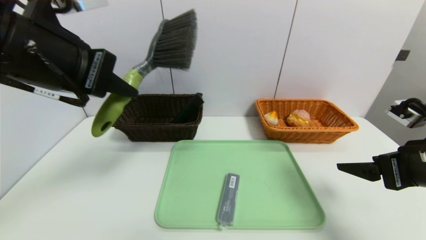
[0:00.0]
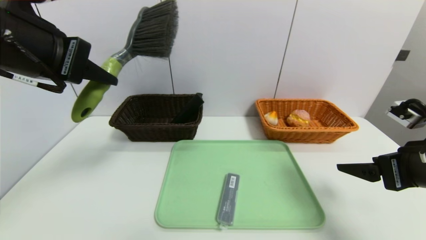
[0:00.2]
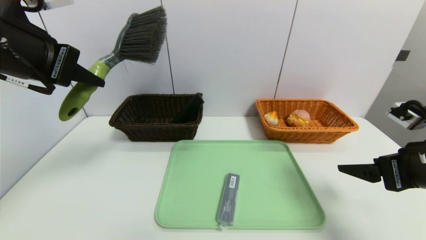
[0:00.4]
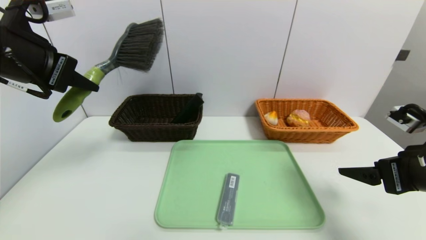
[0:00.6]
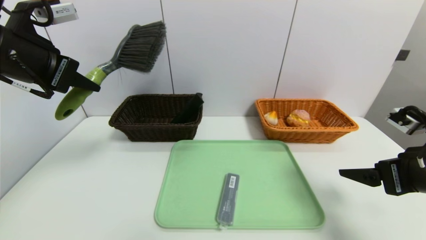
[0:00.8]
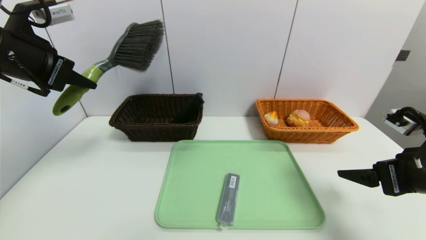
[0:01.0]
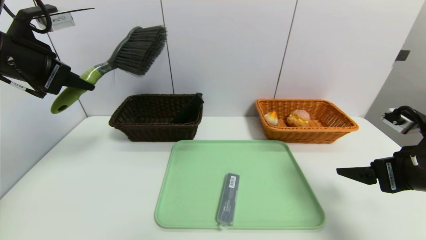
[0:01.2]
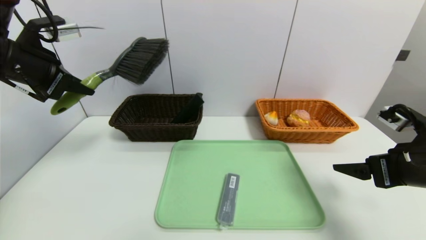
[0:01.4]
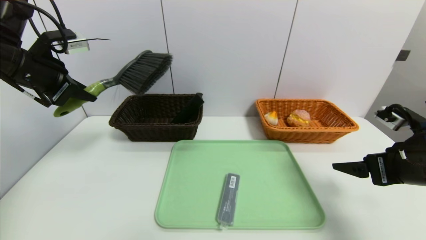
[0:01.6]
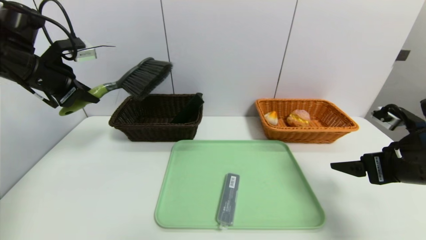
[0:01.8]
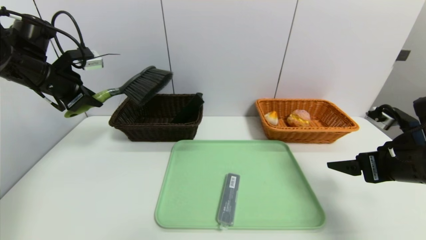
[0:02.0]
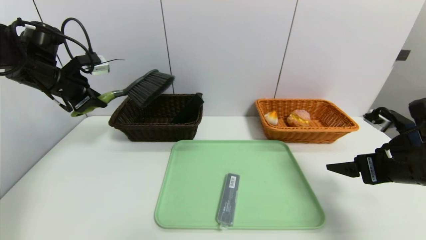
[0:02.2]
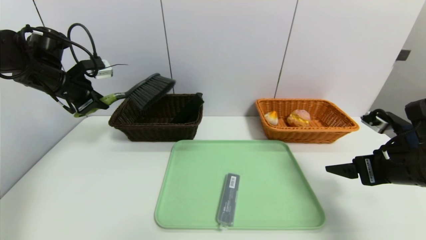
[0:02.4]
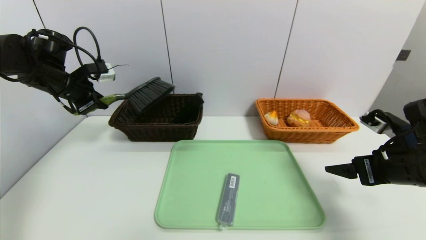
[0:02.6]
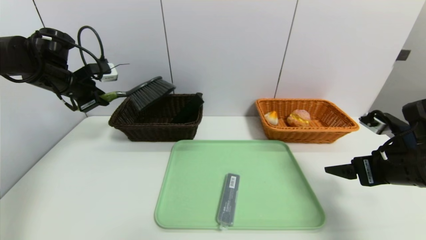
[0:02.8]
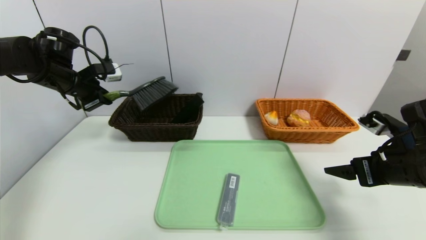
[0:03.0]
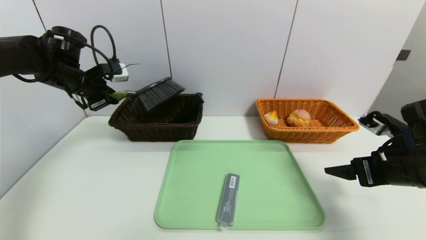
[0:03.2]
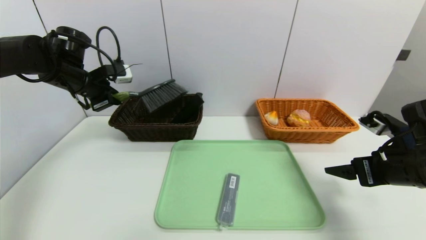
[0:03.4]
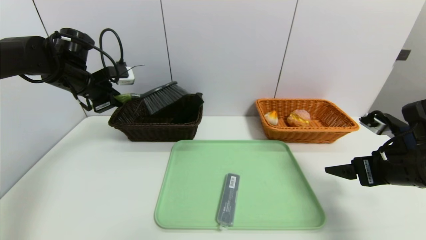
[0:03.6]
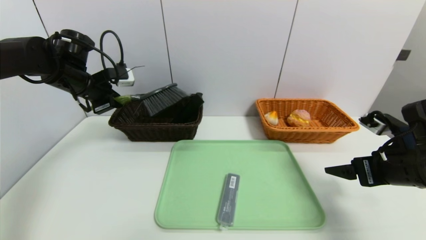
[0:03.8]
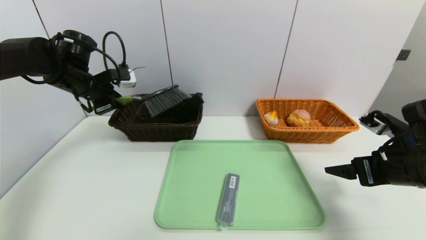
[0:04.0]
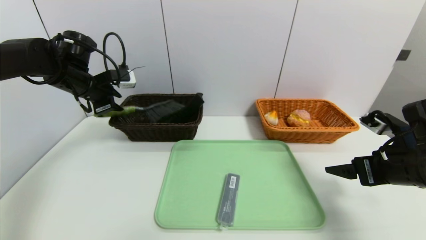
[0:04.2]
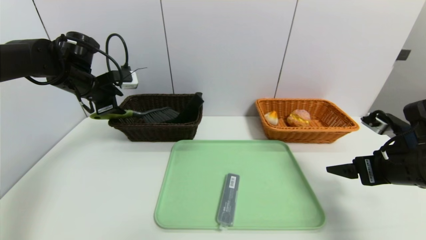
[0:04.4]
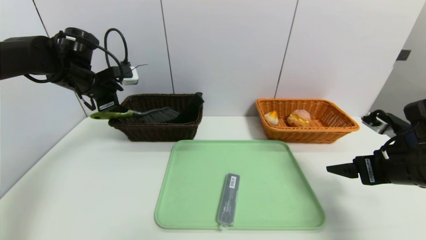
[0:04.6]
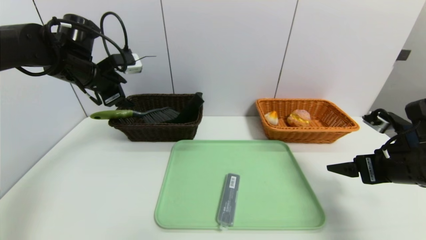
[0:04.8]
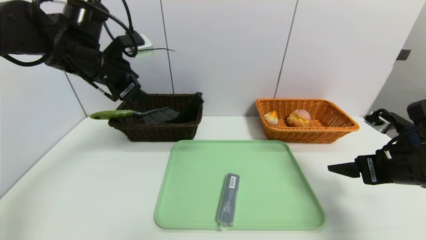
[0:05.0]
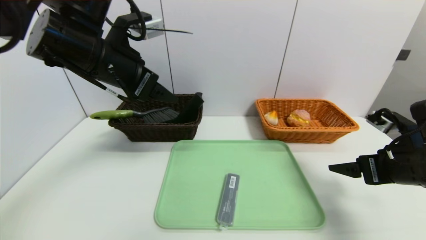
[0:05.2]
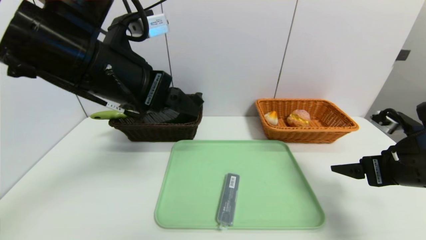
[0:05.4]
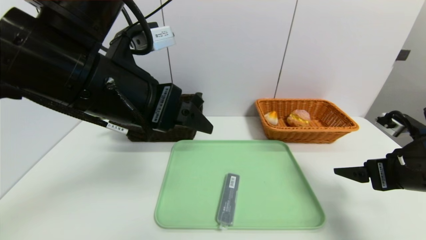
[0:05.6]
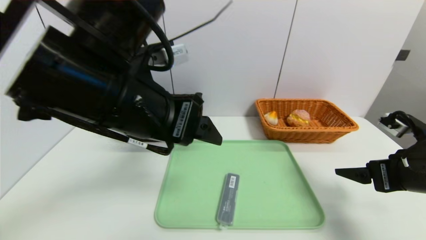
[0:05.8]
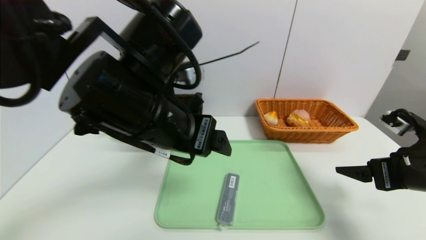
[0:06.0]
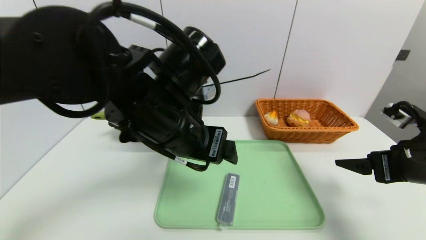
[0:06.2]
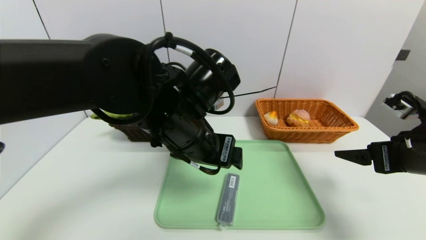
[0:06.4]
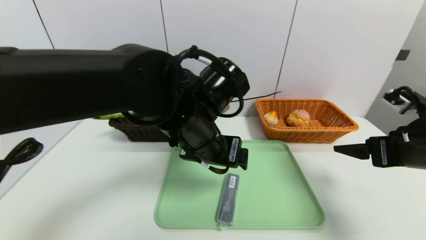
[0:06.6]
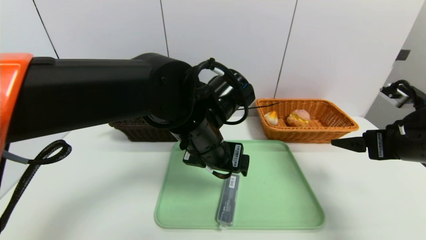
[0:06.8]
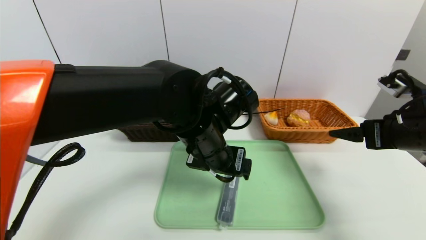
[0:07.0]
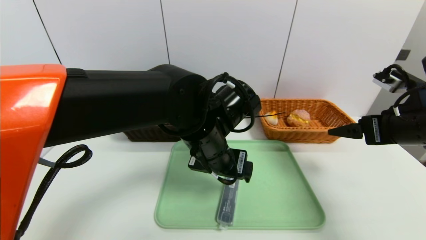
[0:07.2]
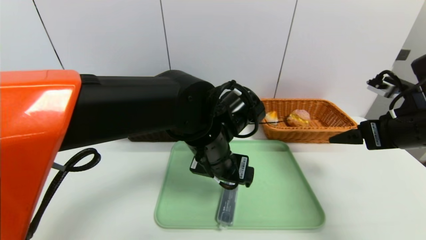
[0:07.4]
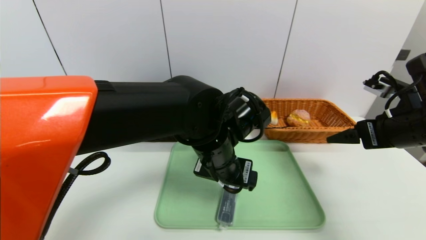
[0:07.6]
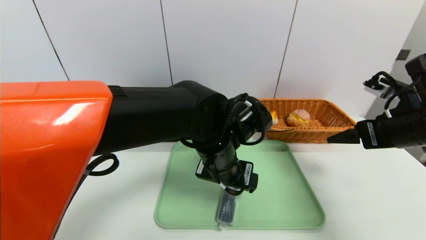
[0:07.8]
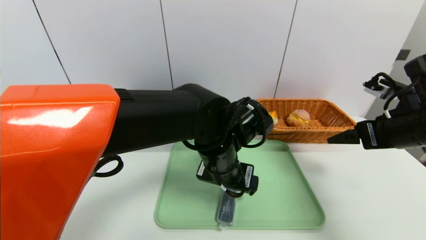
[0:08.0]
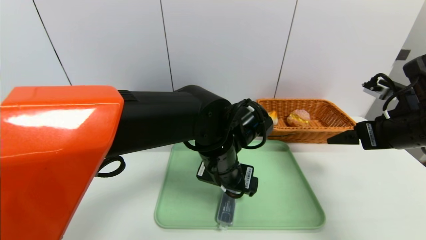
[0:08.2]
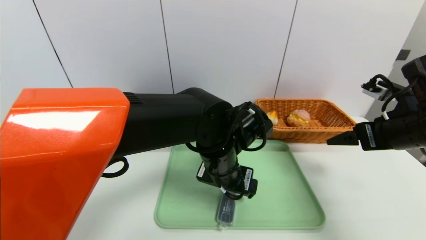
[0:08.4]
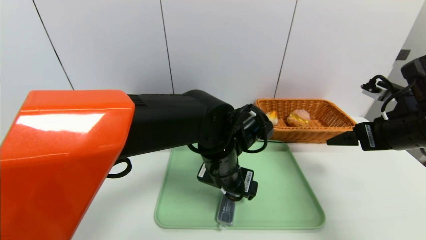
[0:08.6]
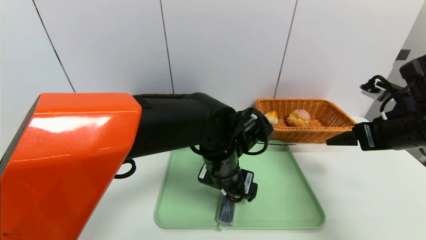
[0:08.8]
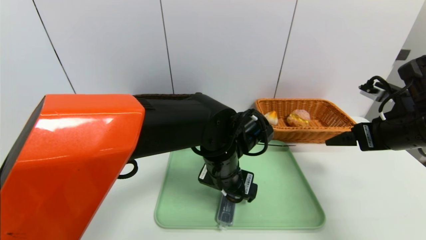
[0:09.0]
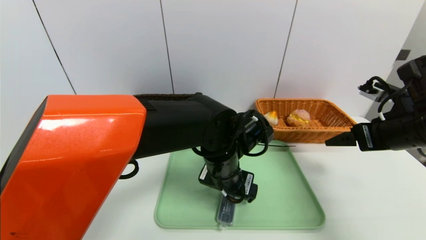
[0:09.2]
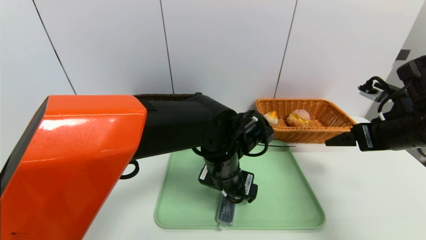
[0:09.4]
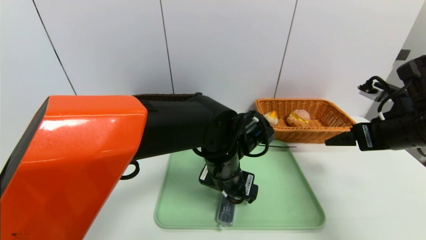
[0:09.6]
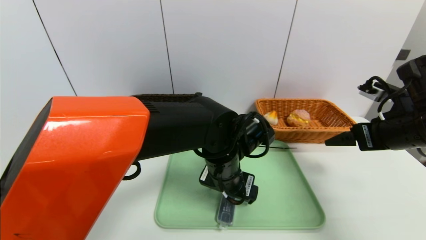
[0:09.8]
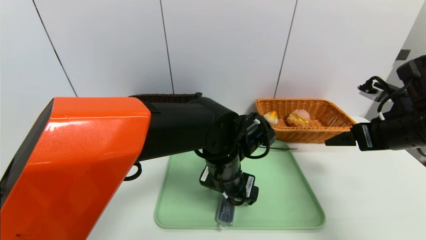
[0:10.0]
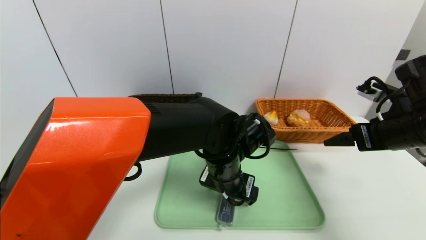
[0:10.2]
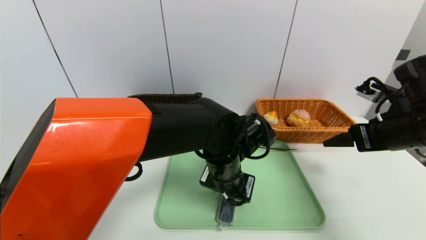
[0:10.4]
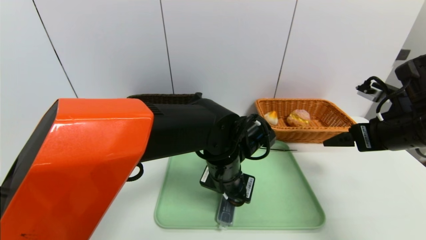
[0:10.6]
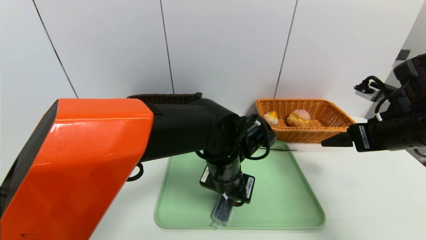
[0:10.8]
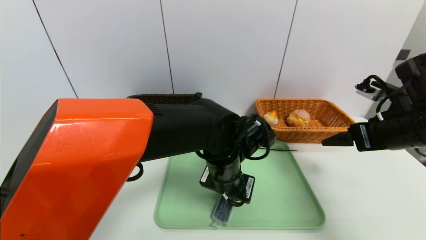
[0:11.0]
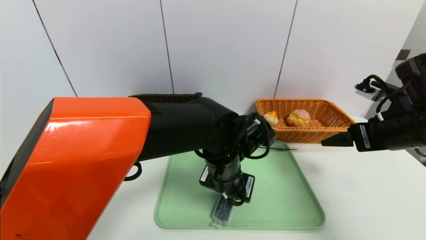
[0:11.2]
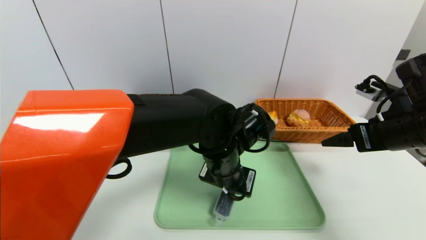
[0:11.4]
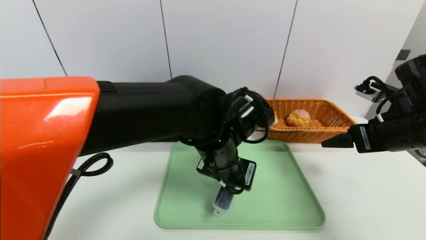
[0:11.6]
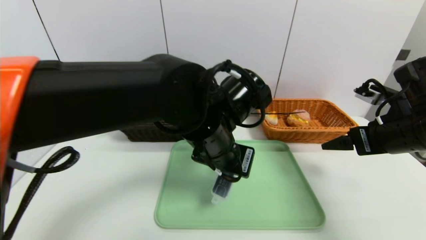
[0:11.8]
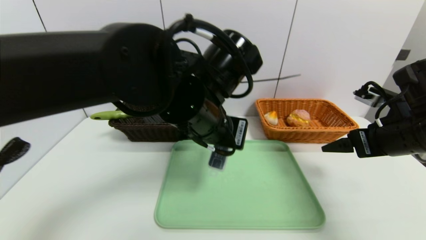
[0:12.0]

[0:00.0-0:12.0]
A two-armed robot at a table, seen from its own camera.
Task of the whole recording: place the food in the right basket with the right gripper, and place the non food items in the left basket with the left gripper.
Step, 0:00.0 to 0:04.6: Grasp the brush and put it in the left basket.
0:00.0 to 0:01.6: The left gripper is displaced to the left and forward by roughly 15 cm.
0:01.6 to 0:03.0: The left gripper travels forward and downward by about 10 cm.
0:03.0 to 0:04.4: The left gripper opens.
0:04.4 to 0:06.0: The left gripper goes roughly 30 cm to the right and backward, and opens up.
0:06.0 to 0:07.6: The right gripper heads forward, covering approximately 5 cm. Meanwhile the left gripper shifts some 15 cm downward and to the right.
0:09.0 to 0:10.4: The two grippers keep their place.
0:10.4 to 0:12.0: The left gripper travels upward by some 10 cm, and closes its fingers.

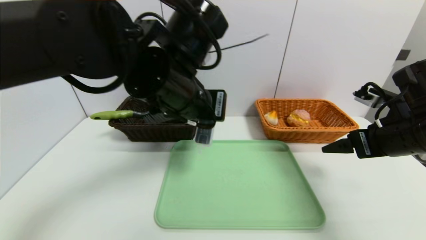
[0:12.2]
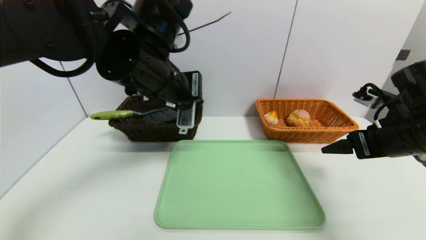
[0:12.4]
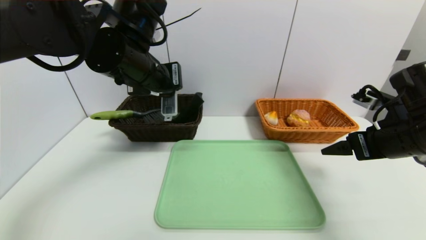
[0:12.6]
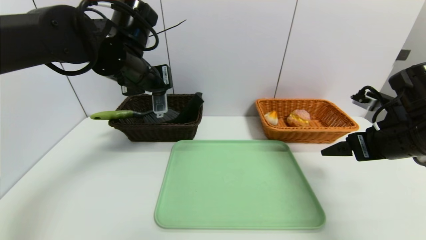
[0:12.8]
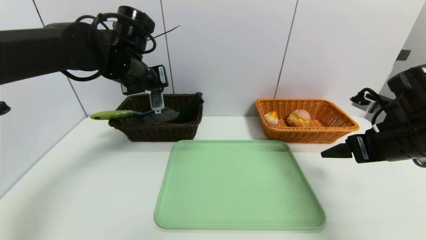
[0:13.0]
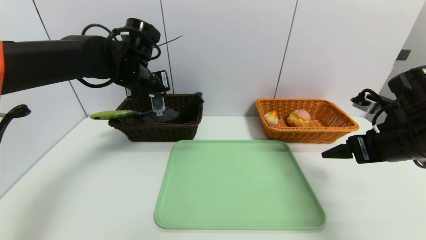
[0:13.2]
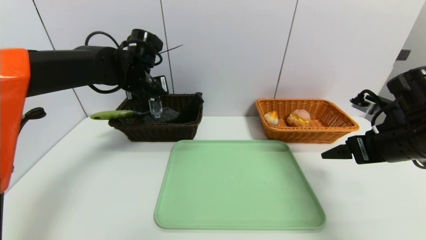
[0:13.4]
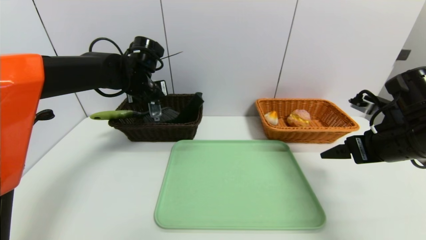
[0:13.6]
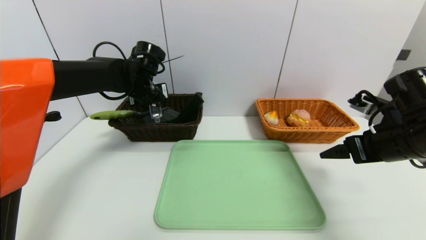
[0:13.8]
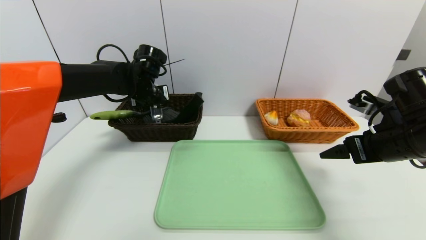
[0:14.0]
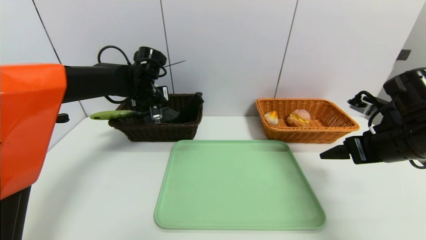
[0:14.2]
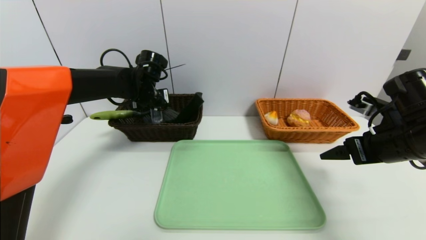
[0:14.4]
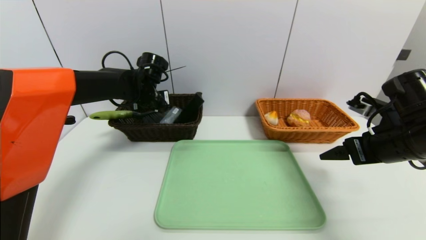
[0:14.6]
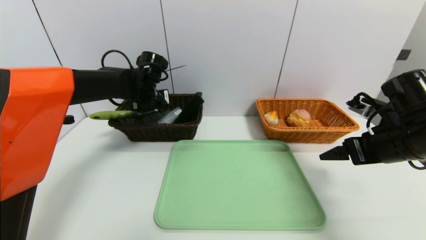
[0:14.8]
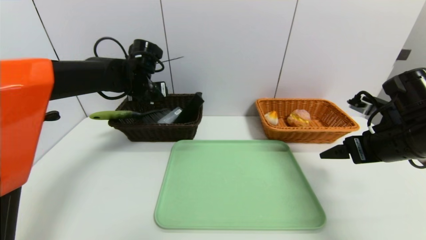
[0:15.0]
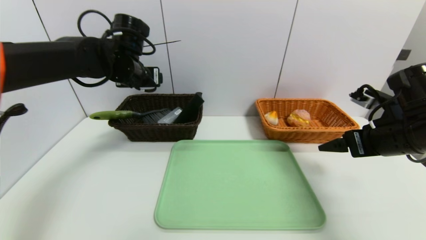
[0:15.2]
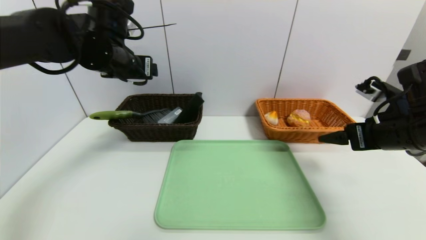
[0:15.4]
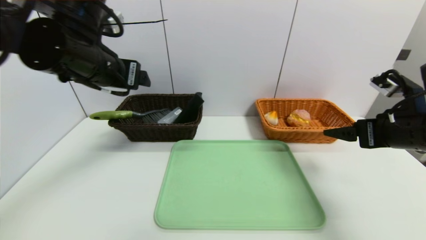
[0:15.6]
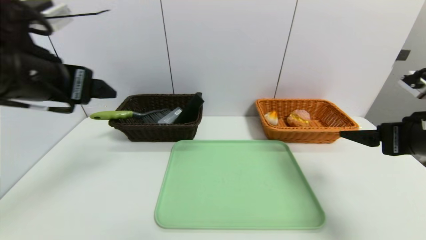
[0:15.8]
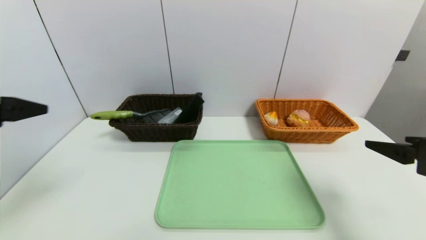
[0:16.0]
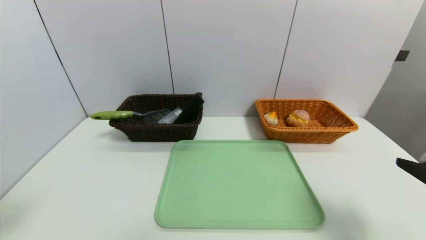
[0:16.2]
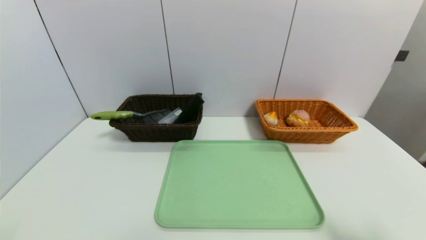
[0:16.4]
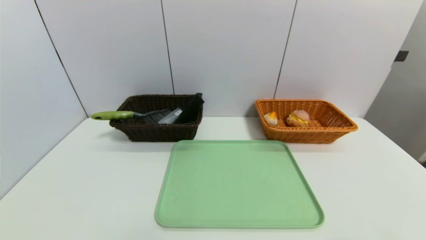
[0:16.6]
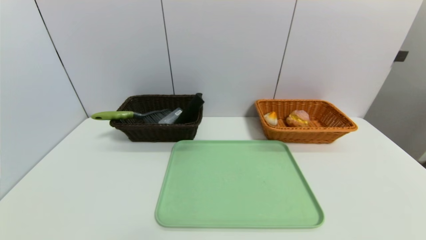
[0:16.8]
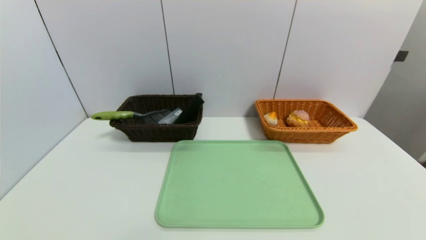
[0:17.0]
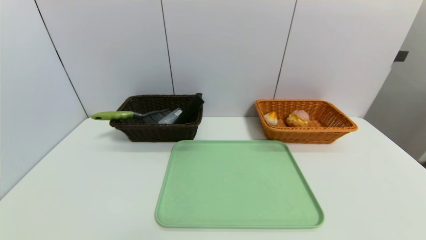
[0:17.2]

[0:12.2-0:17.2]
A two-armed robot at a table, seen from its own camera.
Task of the whole recording: place the food in the right basket with the right gripper, and place the non food items in the left basket with the left gripper.
Step, 0:12.2 to 0:14.8: Grasp the compass and put it in the left basket.
0:12.2 to 0:13.8: The left gripper travels forward and to the left by roughly 20 cm.
0:13.8 to 0:15.6: The left gripper goes about 20 cm backward and upward, and opens up.
0:15.6 to 0:17.2: The right gripper moves backward, roughly 30 cm; the left gripper moves backward and downward, roughly 40 cm.
